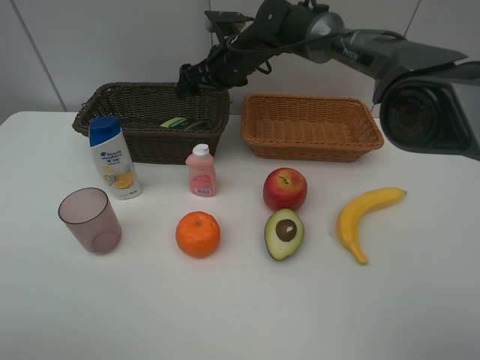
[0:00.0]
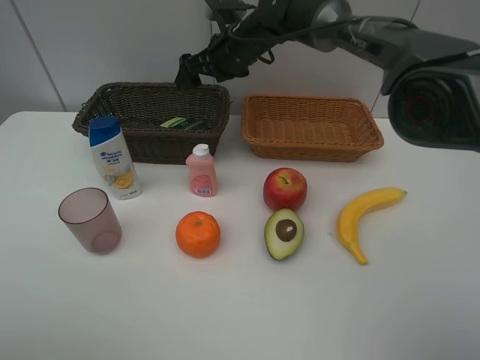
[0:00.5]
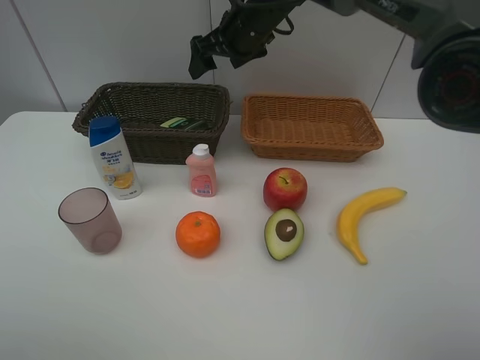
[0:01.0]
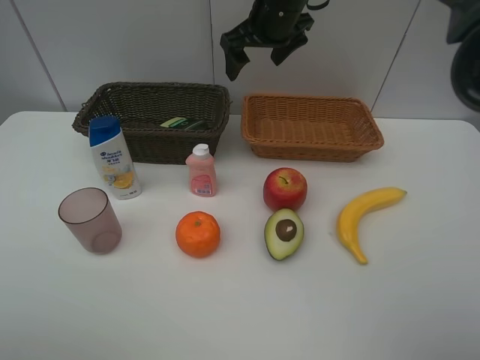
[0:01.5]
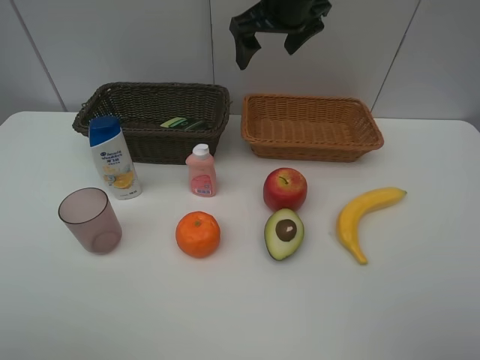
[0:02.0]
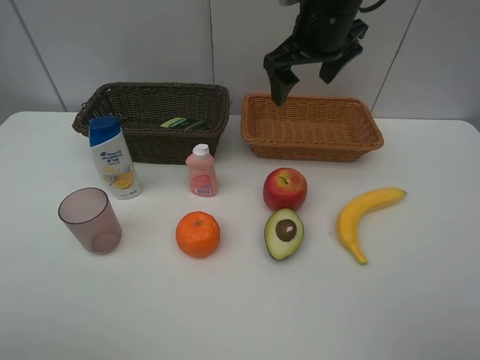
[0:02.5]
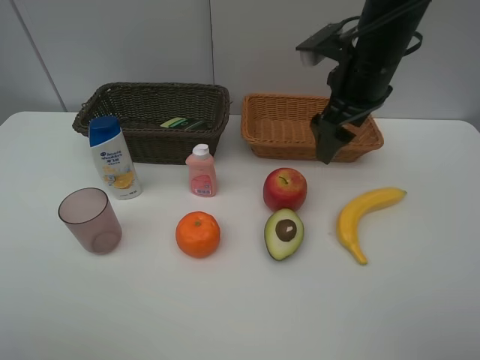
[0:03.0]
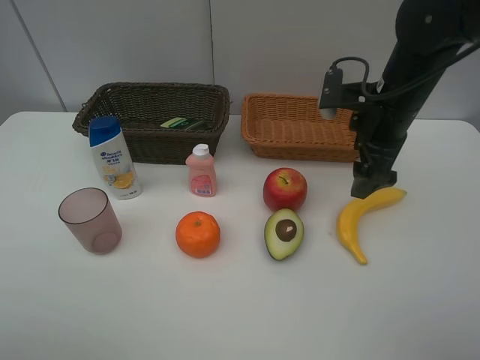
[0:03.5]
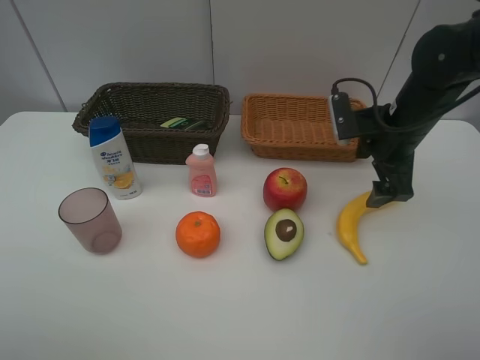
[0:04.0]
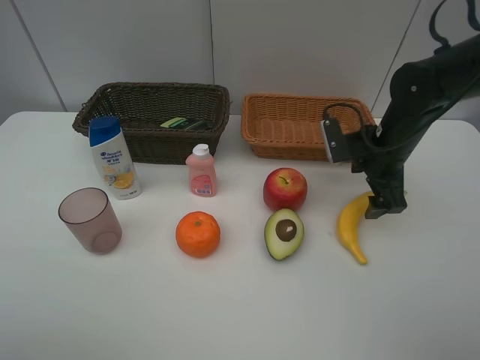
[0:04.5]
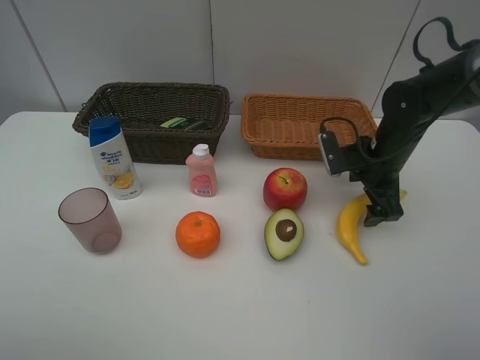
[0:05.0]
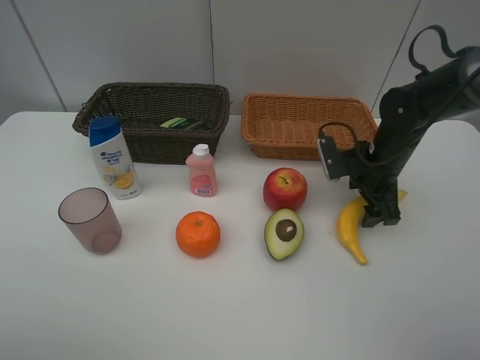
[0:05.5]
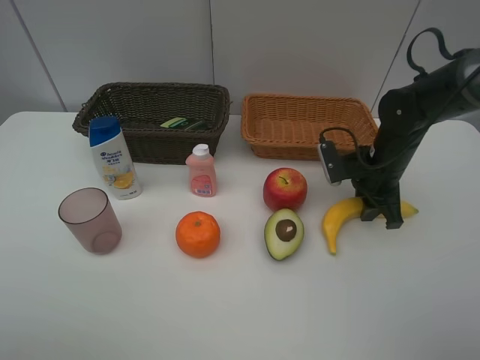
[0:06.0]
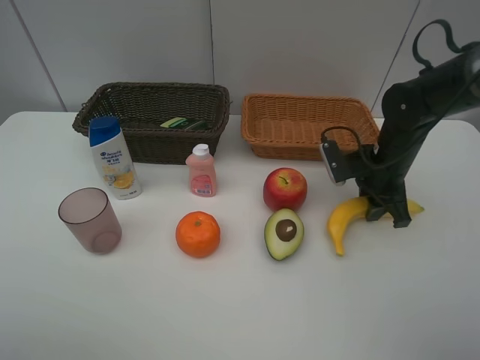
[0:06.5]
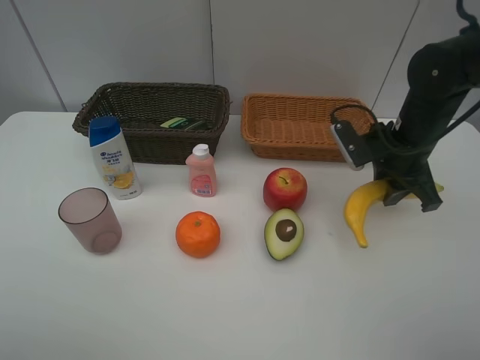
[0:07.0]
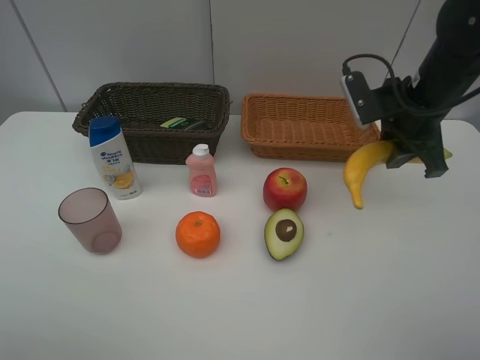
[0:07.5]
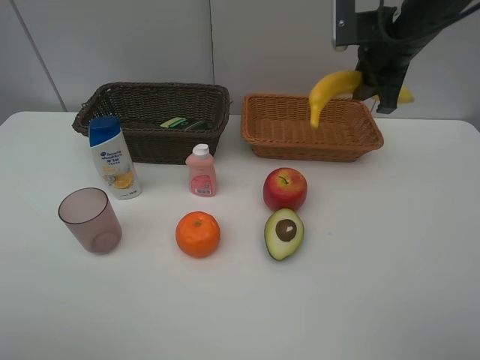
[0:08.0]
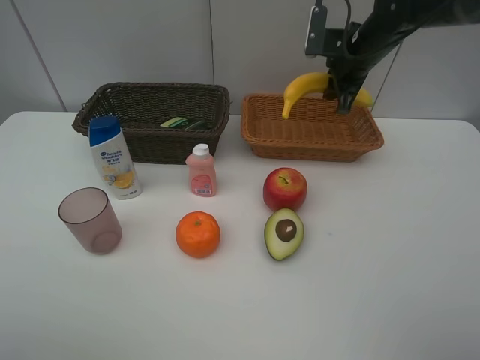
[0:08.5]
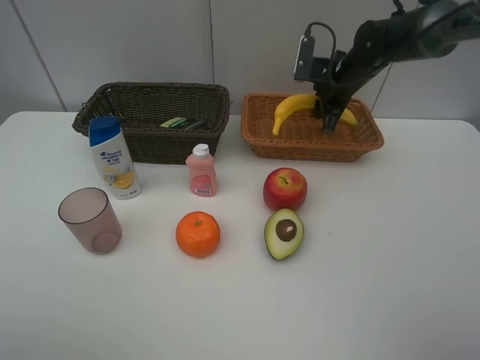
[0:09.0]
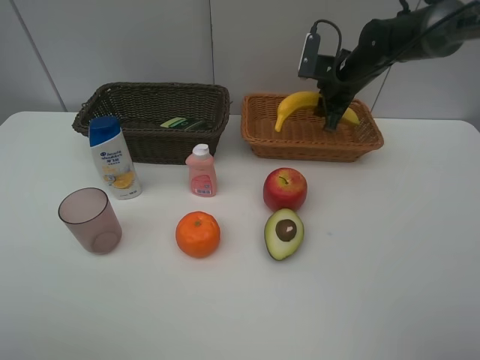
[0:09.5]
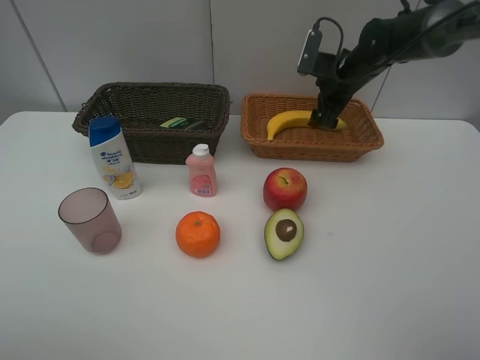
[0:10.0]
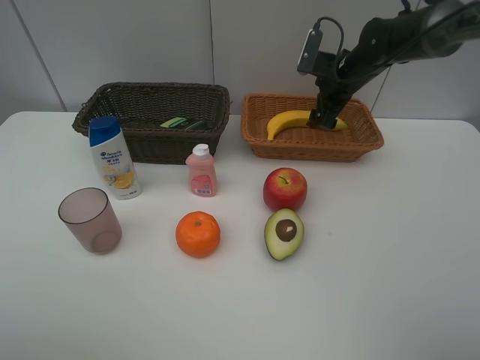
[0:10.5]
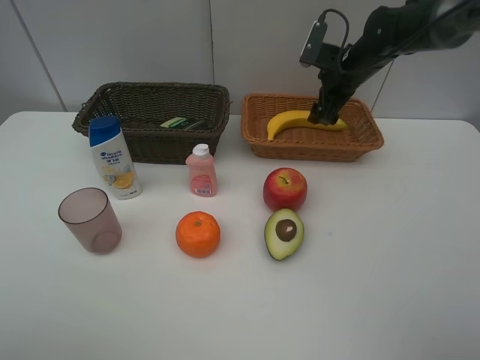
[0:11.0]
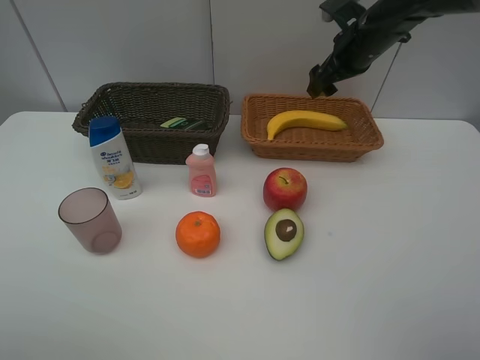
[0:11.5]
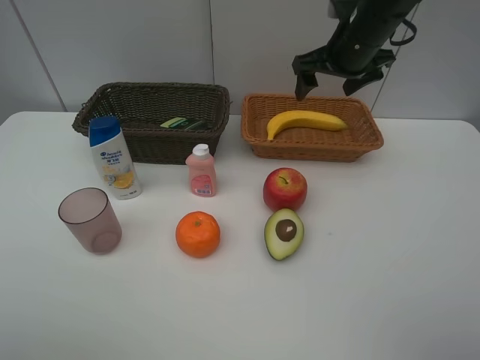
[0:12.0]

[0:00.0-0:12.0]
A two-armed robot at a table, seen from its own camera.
Task of the whole recording: Place multiple objects separately in different baskets.
Step, 0:00.0 to 0:06.5: Pick up banana with right gripper.
Step, 0:07.0 to 0:10.0: Place the banana in the light basket with right gripper.
0:00.0 to 0:02.0: The right gripper is displaced upward, to the right and backward by some 15 cm.
0:02.0 to 0:04.0: The right gripper goes about 20 cm to the right, downward and backward.
0:04.0 to 0:06.0: The right gripper heads downward, covering approximately 10 cm, and closes up.
0:06.0 to 0:08.0: The right gripper heads upward, covering roughly 15 cm.
0:08.0 to 0:10.0: The right gripper heads downward and forward, covering roughly 15 cm, and opens its fingers.
0:10.0 to 0:12.0: The right gripper heads upward and backward, covering about 10 cm.

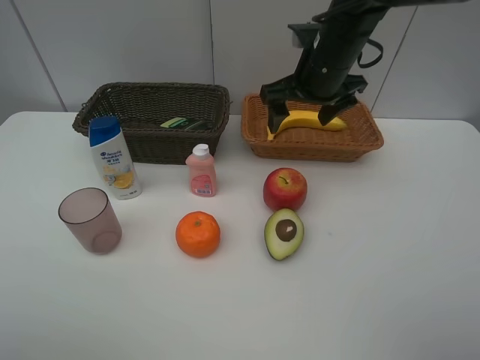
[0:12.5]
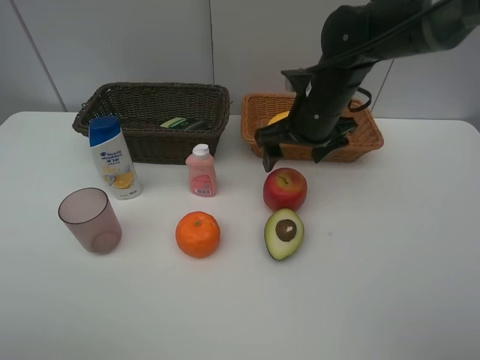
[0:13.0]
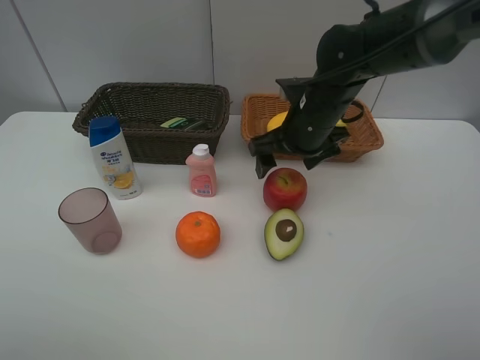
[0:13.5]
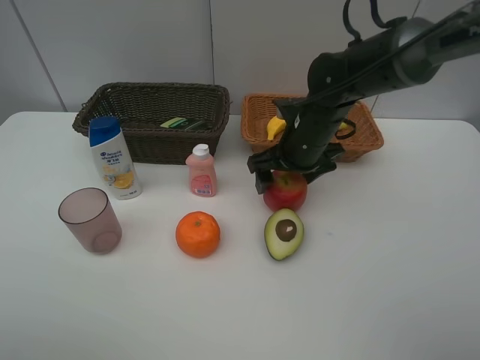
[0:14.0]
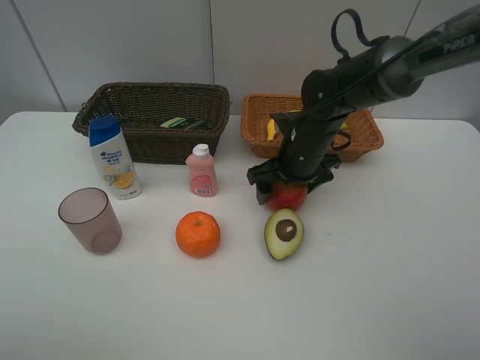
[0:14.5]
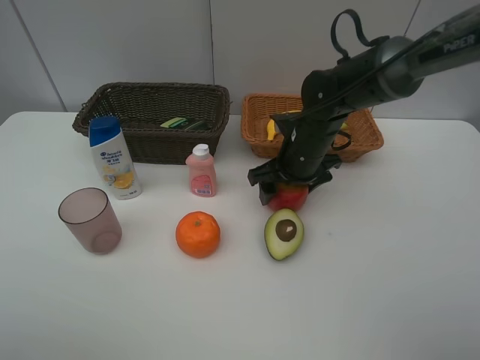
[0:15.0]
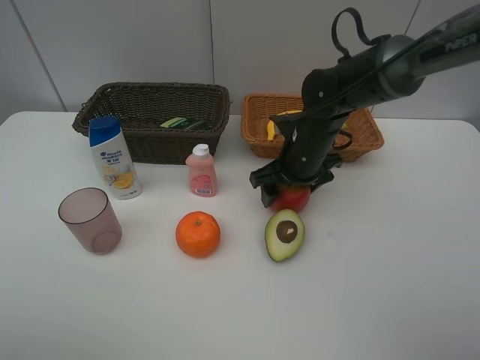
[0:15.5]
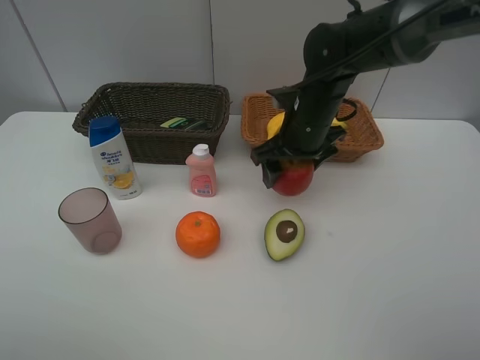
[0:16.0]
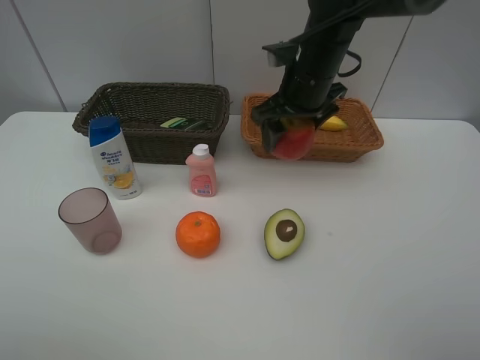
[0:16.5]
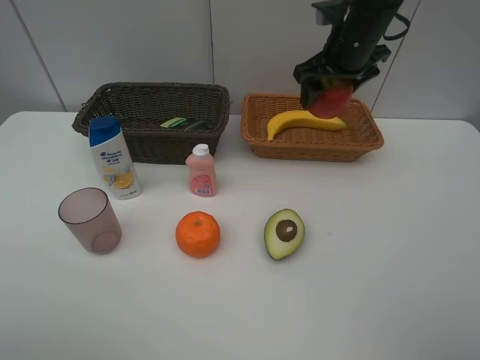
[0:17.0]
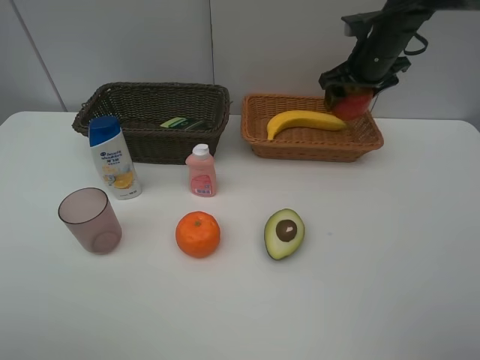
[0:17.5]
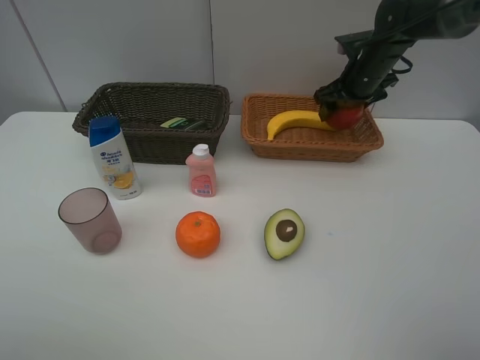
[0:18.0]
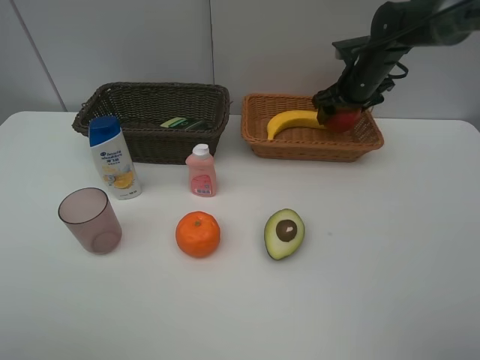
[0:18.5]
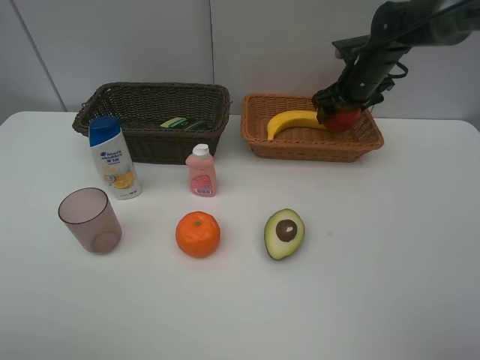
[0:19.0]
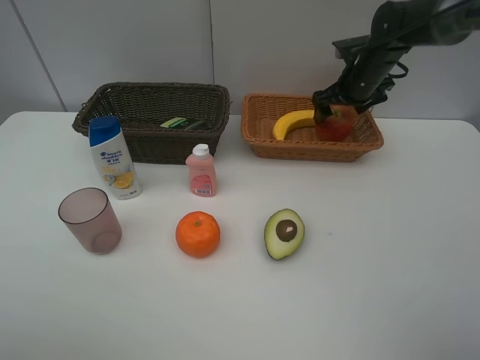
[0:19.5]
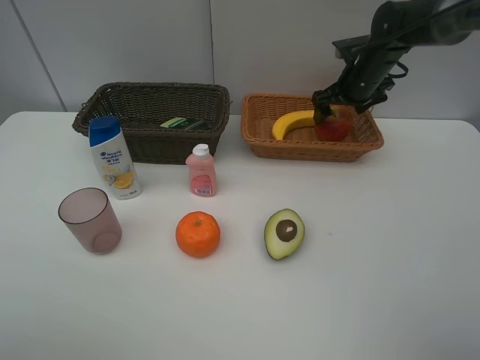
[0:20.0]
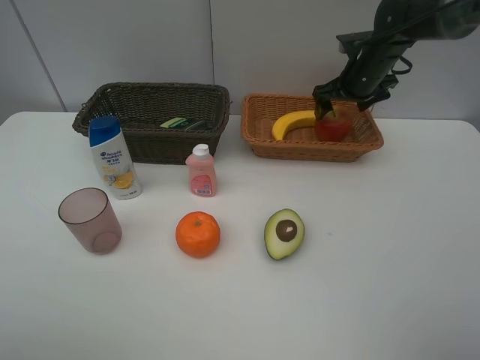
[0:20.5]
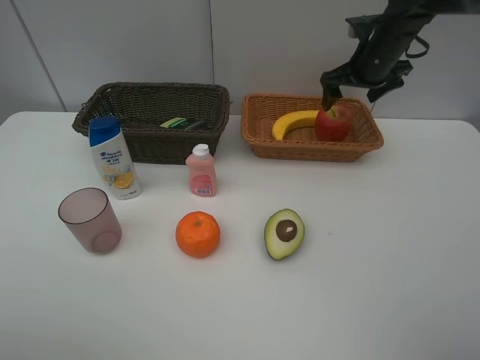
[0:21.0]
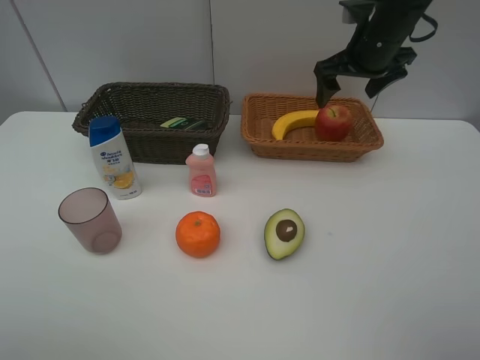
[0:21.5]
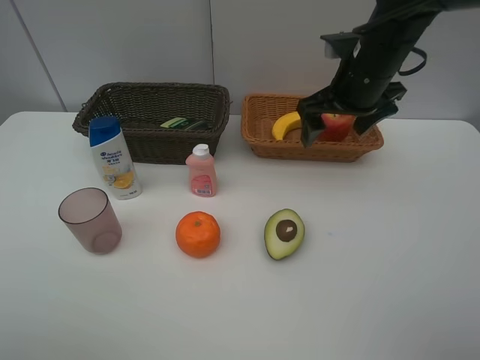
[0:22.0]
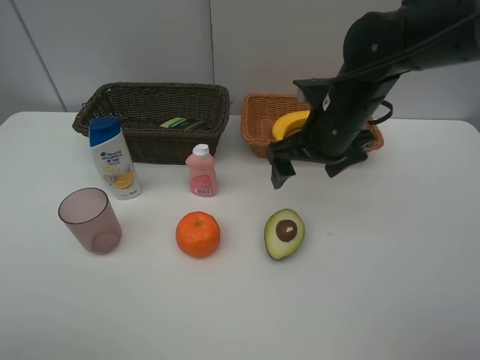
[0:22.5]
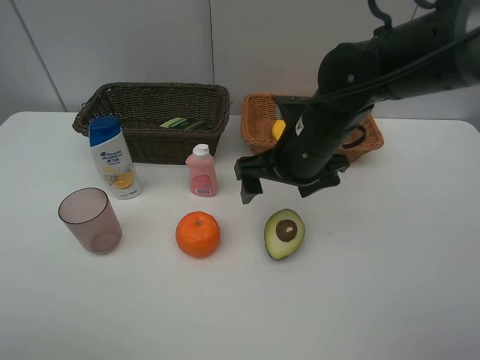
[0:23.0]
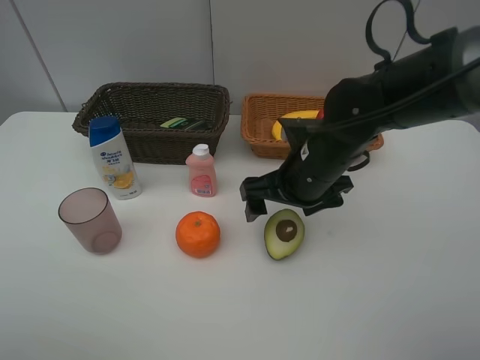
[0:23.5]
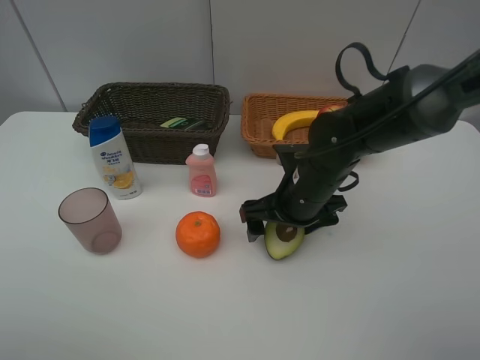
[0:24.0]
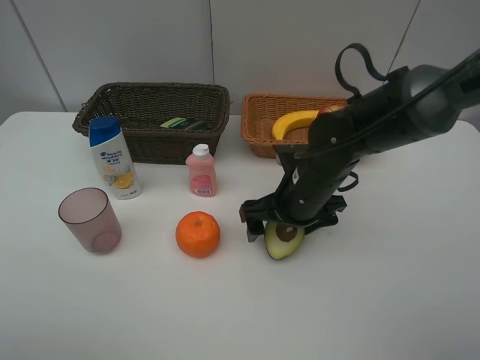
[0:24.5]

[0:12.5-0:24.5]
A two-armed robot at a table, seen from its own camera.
Task of the whole recording: Place multiple objects separately in different baskets.
Step, 0:12.5 to 0:15.5: Pick up the apple with right gripper.
Step, 0:16.0 to 0:20.5: Place the apple in the light basket with right gripper.
0:12.5 to 0:14.5: The right gripper travels downward by approximately 10 cm.
0:14.5 to 0:16.5: The right gripper is displaced upward by about 10 cm.
0:16.5 to 0:18.5: The right gripper moves to the right, forward and downward, about 15 cm.
0:18.5 to 0:20.5: Both grippers stay put.
0:20.5 to 0:22.5: The right gripper shifts approximately 20 cm backward and to the left.
0:22.5 to 0:24.5: The right gripper shifts approximately 10 cm downward.

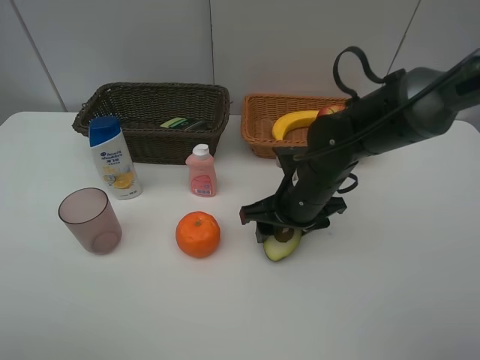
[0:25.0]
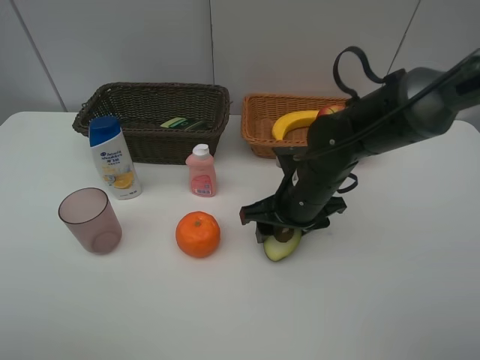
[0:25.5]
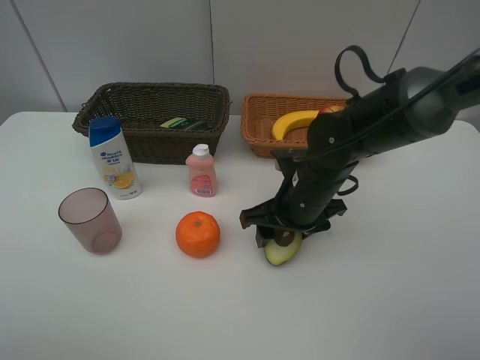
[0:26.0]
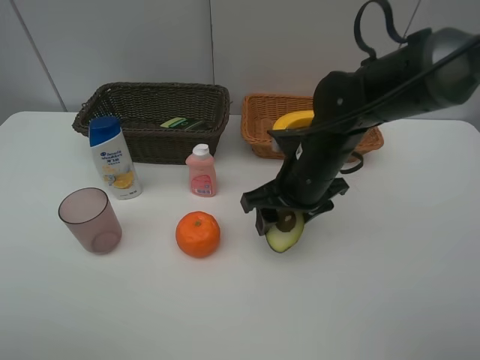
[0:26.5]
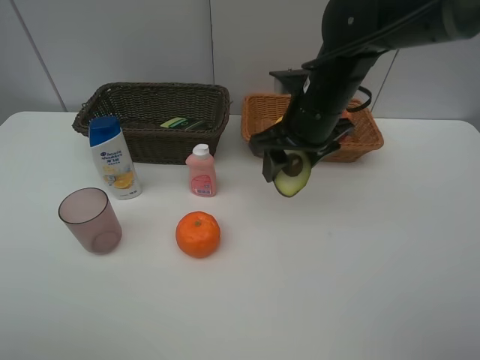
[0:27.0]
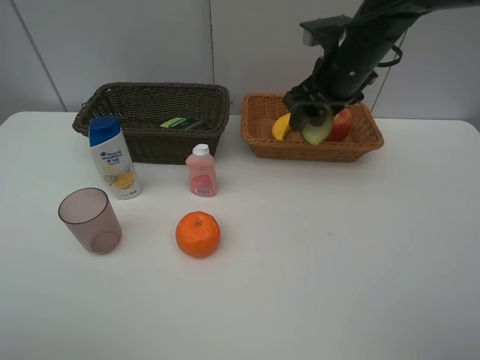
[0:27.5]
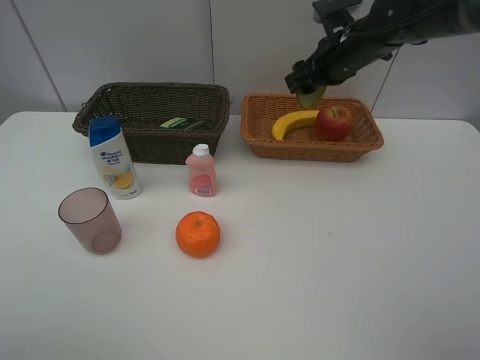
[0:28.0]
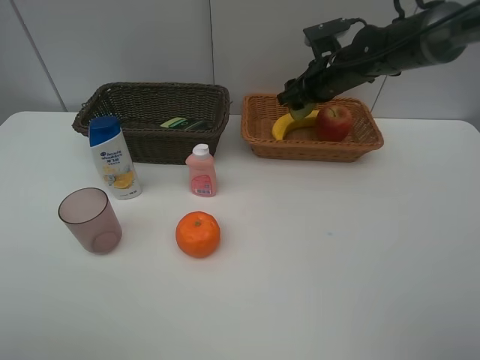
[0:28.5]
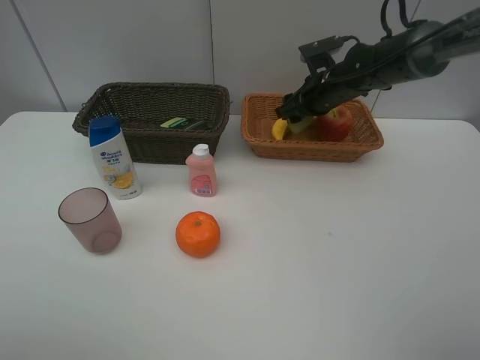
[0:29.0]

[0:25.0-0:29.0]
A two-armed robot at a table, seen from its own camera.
Task of the whole recording: Place multiple objects separately in different baskets.
0:25.0 to 0:27.0: The right gripper heads upward and forward, covering approximately 10 cm.
0:27.0 to 0:29.0: The right gripper goes roughly 15 cm forward, downward and to the right.
